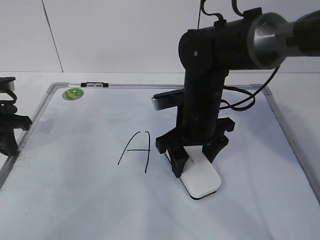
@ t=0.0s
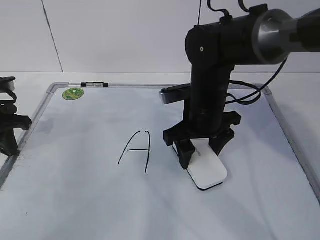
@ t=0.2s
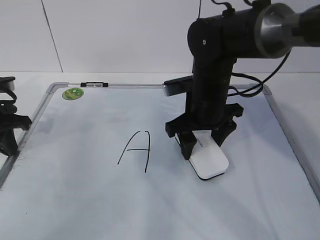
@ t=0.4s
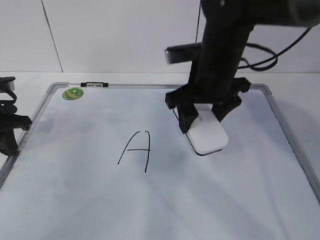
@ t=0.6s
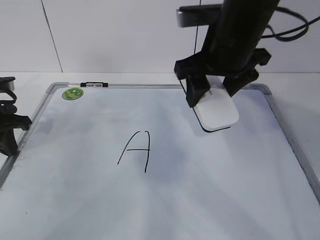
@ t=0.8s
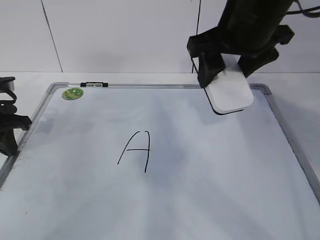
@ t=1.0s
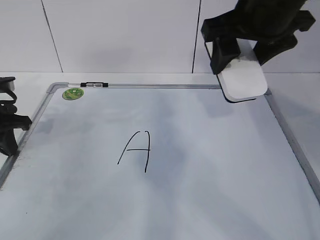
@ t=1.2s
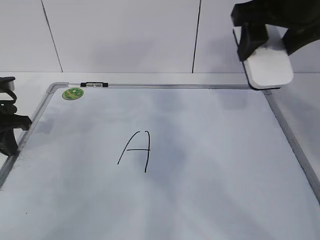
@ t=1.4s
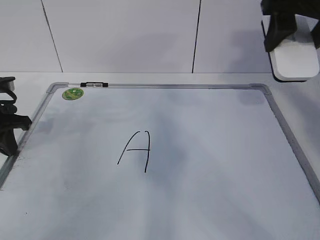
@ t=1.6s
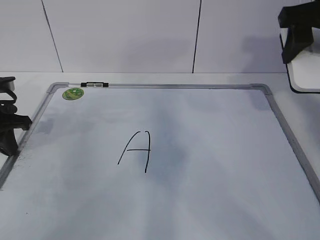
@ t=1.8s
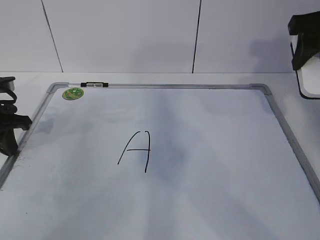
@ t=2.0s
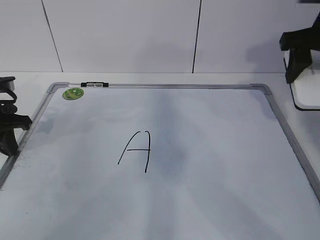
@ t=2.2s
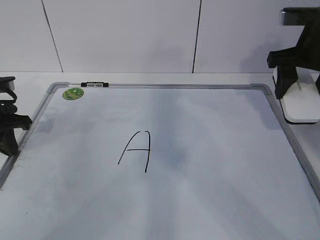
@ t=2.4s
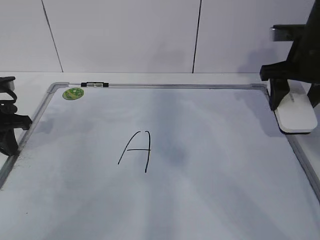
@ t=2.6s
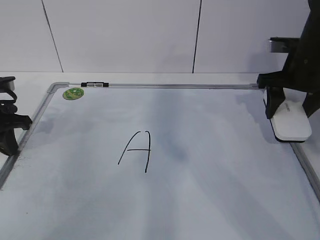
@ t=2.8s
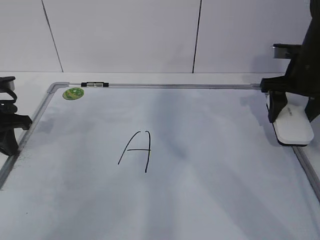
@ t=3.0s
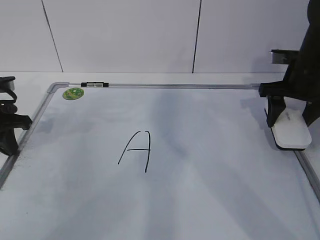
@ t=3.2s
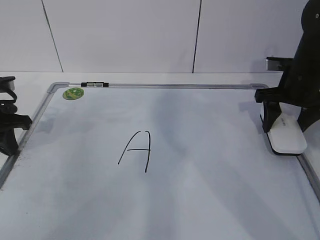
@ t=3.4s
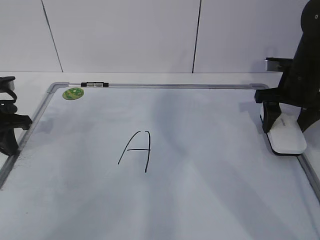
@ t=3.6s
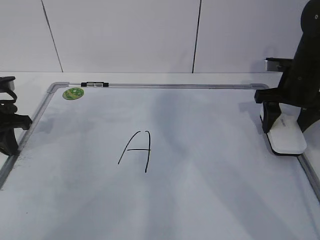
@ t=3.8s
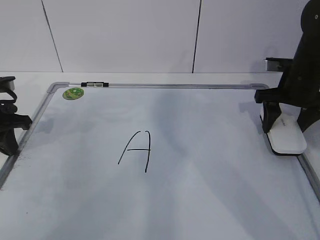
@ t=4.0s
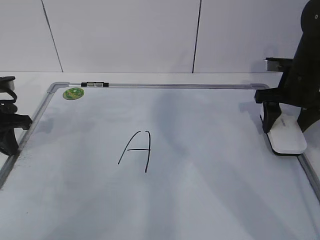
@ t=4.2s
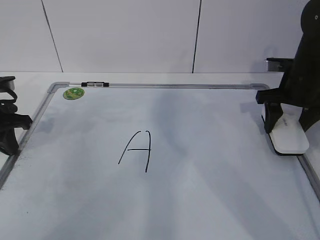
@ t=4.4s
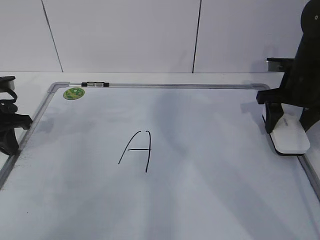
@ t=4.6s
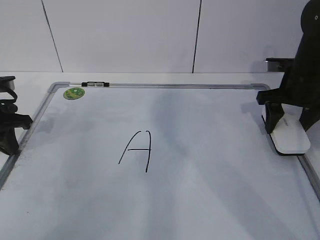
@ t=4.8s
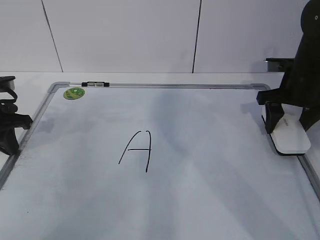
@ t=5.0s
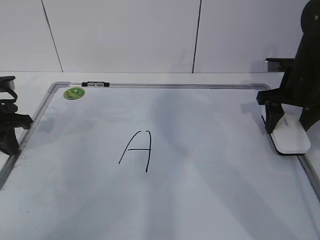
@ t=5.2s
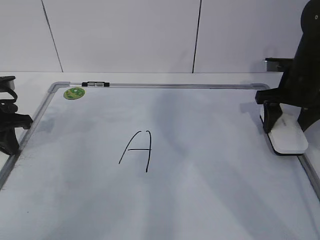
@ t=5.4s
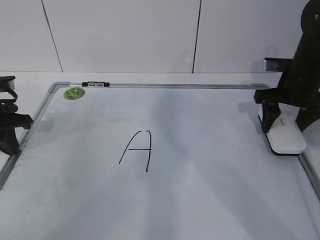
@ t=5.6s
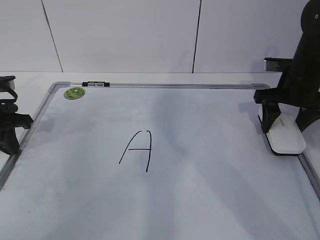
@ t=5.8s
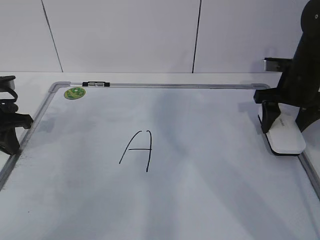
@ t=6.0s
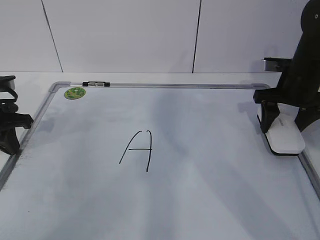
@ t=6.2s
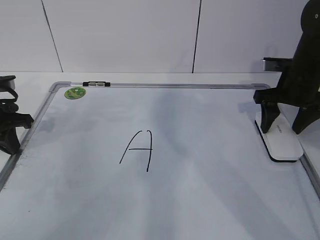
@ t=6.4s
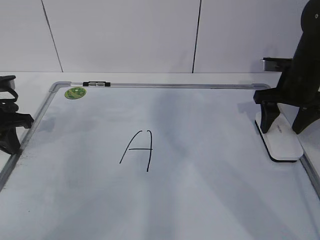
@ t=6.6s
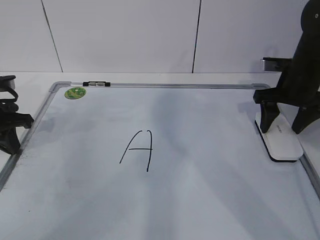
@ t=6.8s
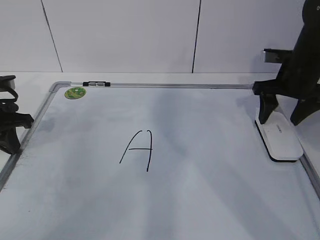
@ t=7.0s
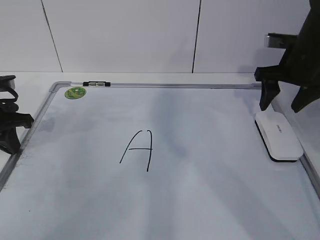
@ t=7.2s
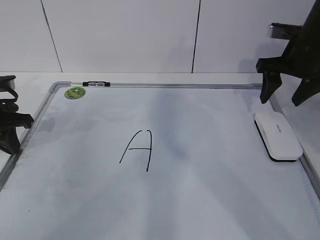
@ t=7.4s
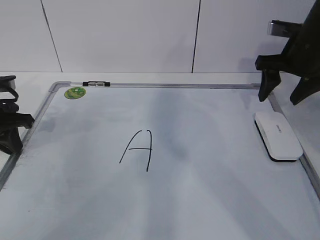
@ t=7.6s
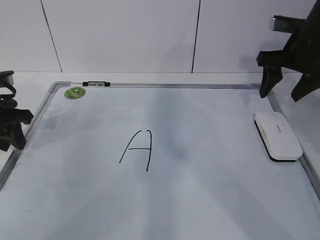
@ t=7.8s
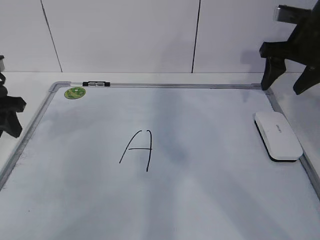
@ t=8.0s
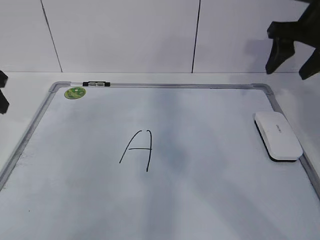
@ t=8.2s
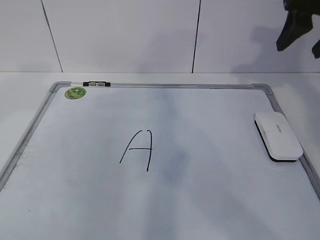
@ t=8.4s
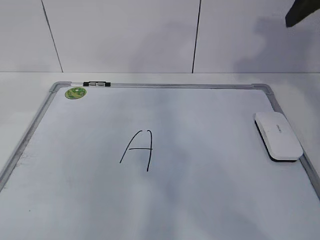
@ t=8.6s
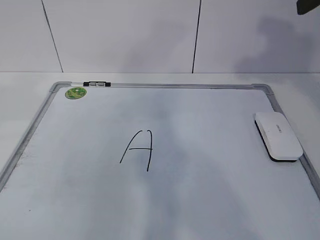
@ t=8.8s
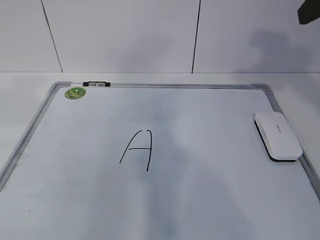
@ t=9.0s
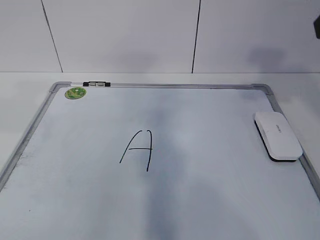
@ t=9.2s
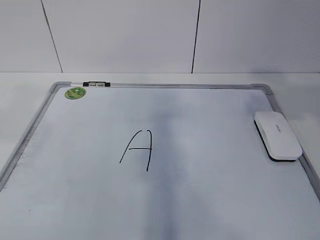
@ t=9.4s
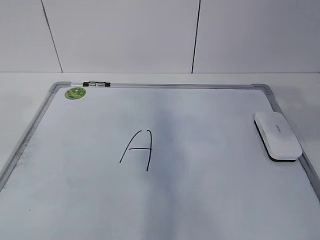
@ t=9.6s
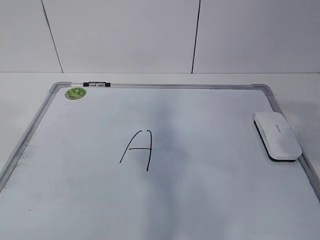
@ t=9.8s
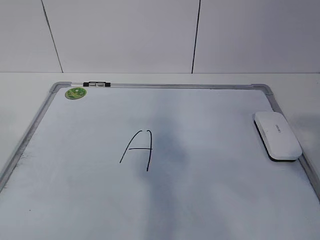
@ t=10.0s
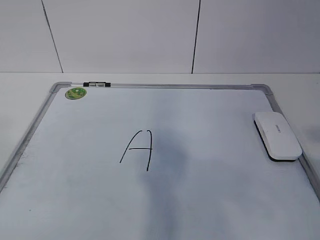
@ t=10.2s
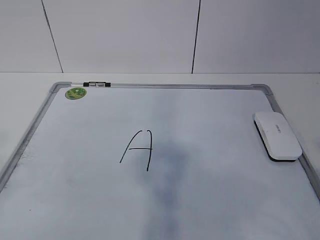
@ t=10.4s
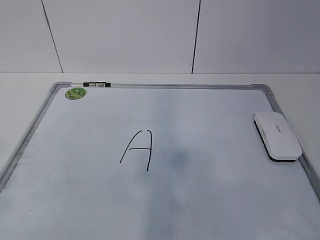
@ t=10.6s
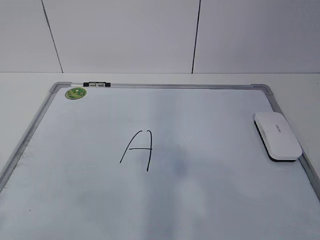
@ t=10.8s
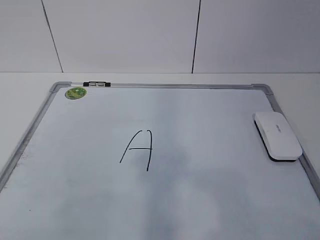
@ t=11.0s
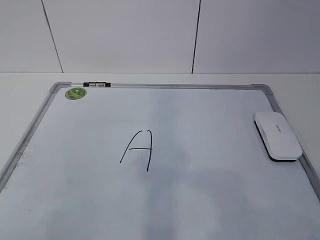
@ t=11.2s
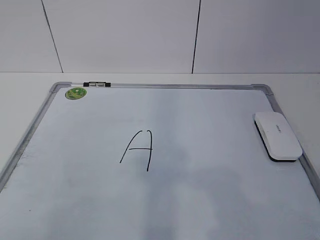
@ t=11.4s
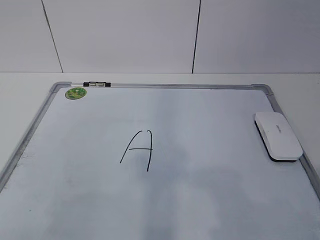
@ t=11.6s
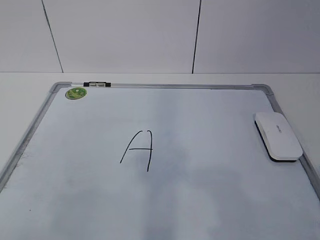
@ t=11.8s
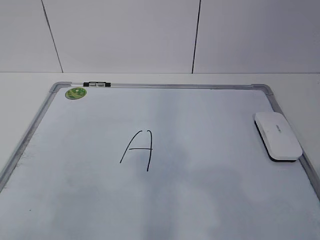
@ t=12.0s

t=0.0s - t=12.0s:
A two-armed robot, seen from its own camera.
Task of the whole recording: pick up the eraser on the blackboard and erase the letter "a".
t=0.0s - t=1.6s: The right gripper travels upward and to the right by approximately 25 cm.
t=1.6s - t=3.0s: The right gripper goes roughly 15 cm downward and forward.
t=3.0s - t=4.4s: The grippers make only small movements.
t=4.4s - t=6.0s: The two grippers keep their place.
t=6.0s - t=7.6s: The right gripper heads upward, covering some 5 cm.
t=7.6s - t=9.0s: Both grippers move upward and backward, approximately 25 cm. The left gripper opens.
t=9.0s - t=10.4s: The right gripper is displaced backward by roughly 25 cm.
